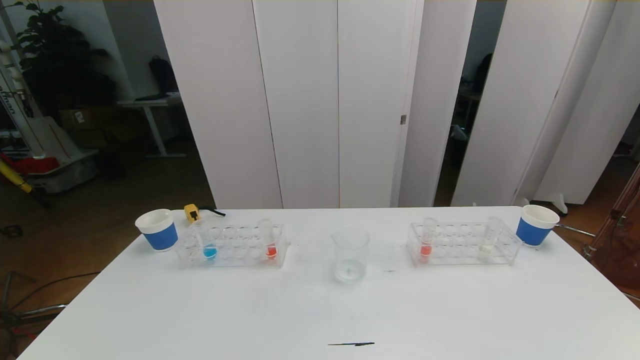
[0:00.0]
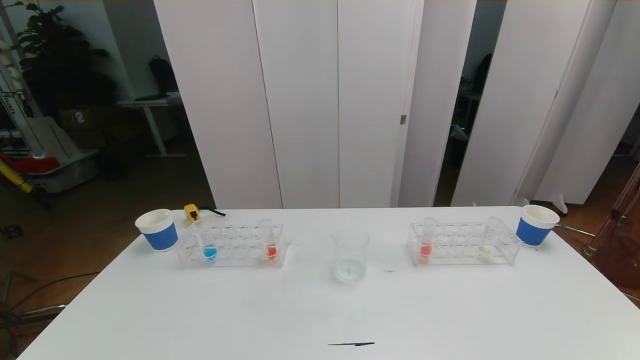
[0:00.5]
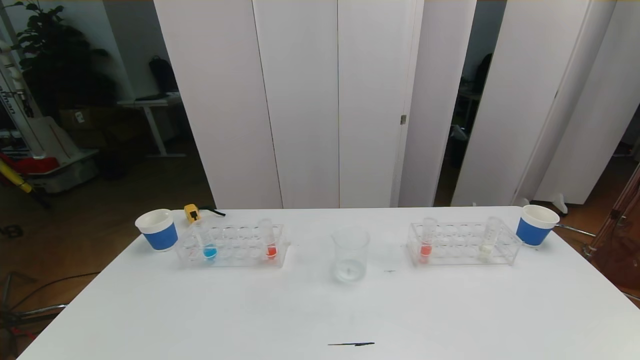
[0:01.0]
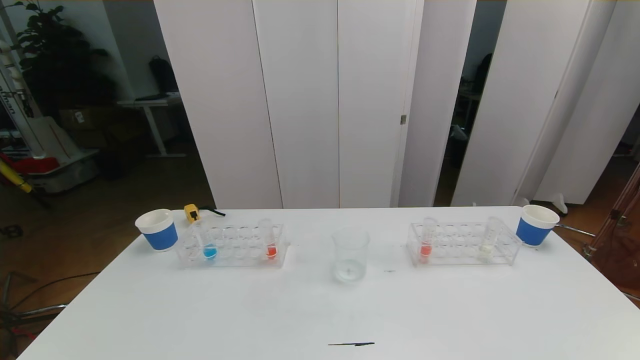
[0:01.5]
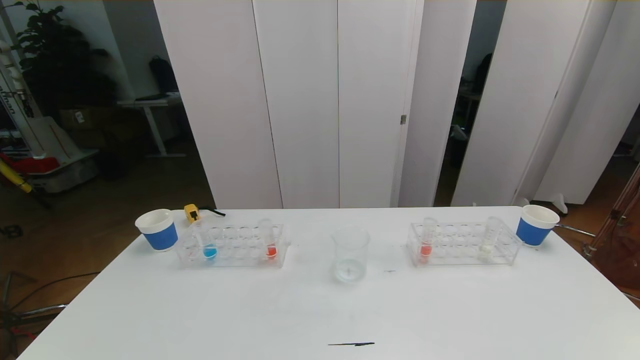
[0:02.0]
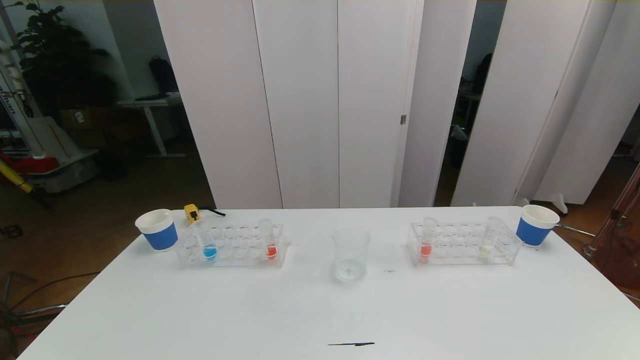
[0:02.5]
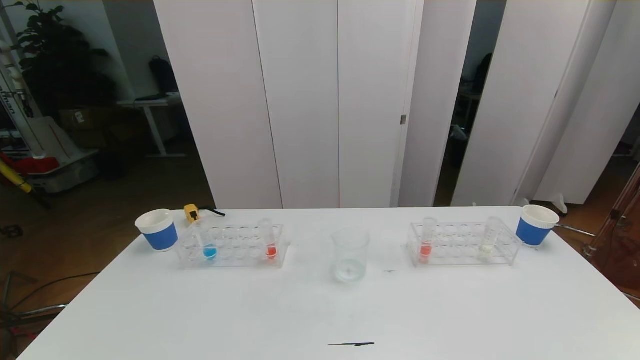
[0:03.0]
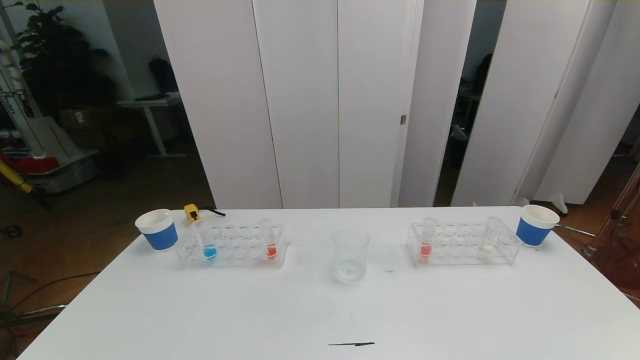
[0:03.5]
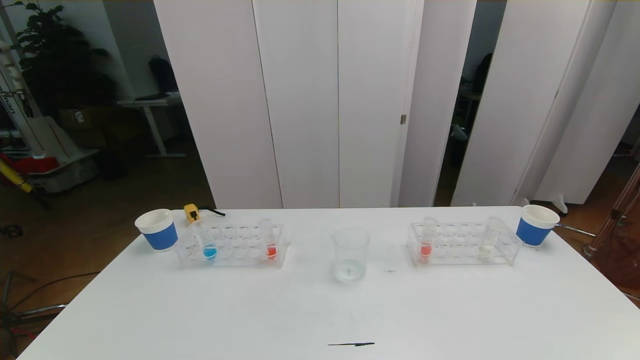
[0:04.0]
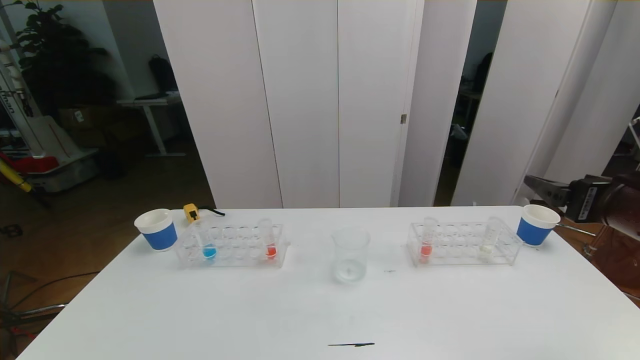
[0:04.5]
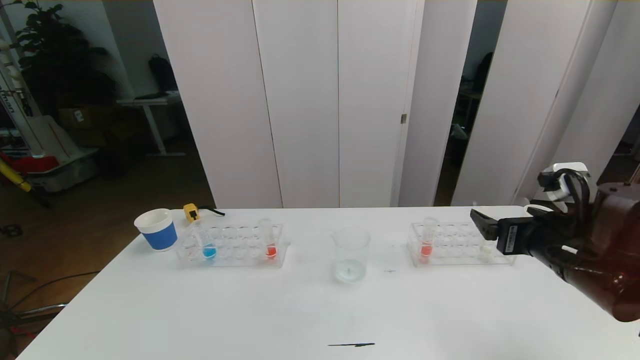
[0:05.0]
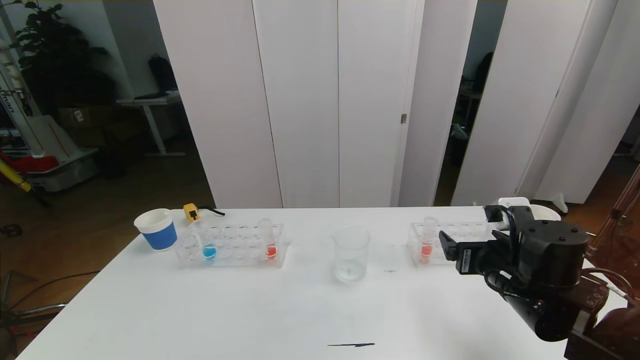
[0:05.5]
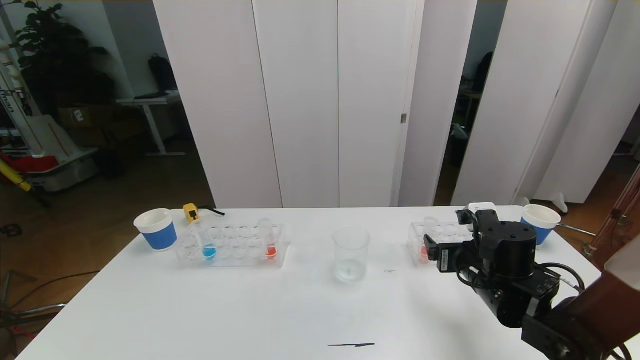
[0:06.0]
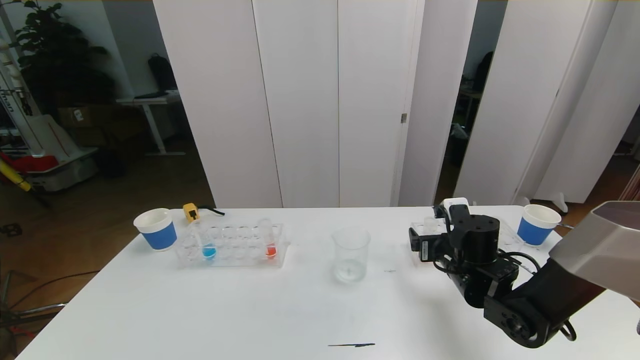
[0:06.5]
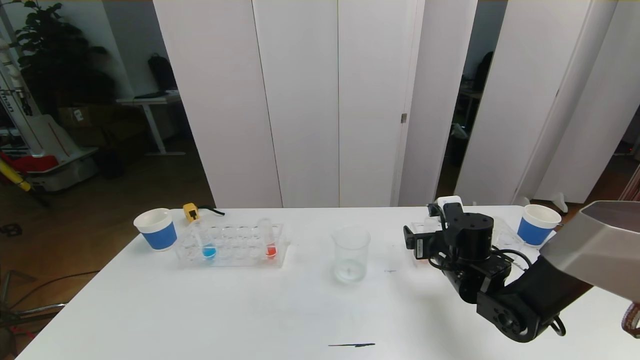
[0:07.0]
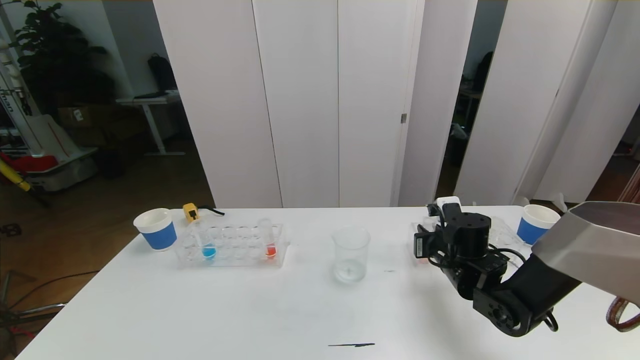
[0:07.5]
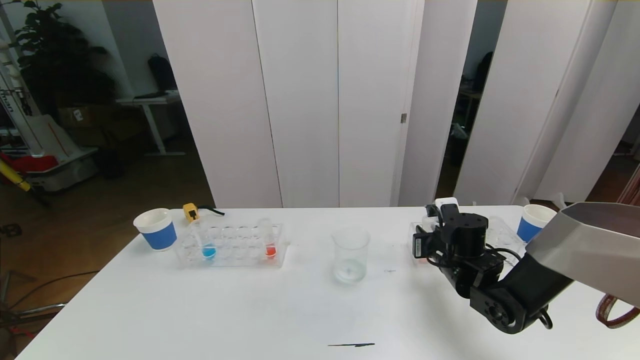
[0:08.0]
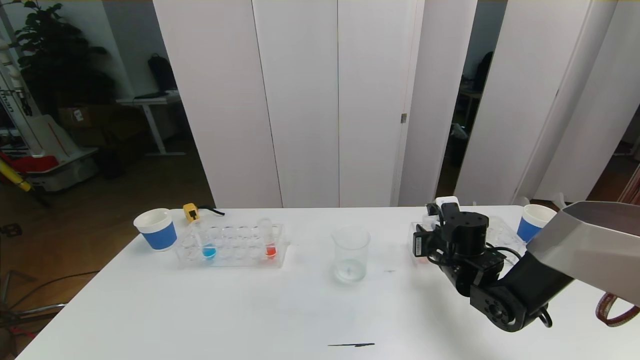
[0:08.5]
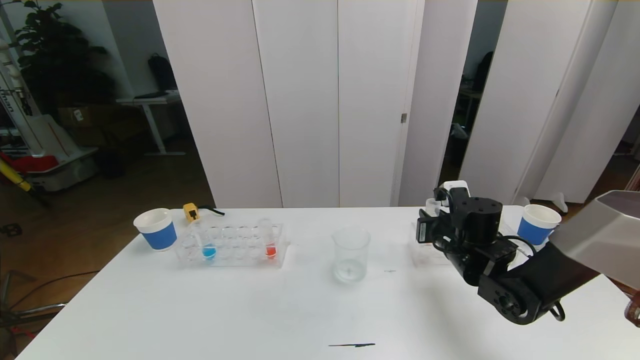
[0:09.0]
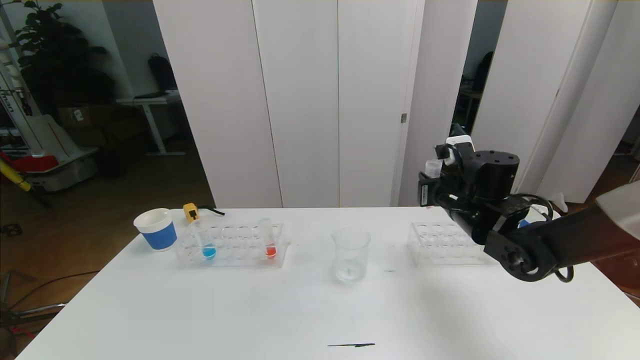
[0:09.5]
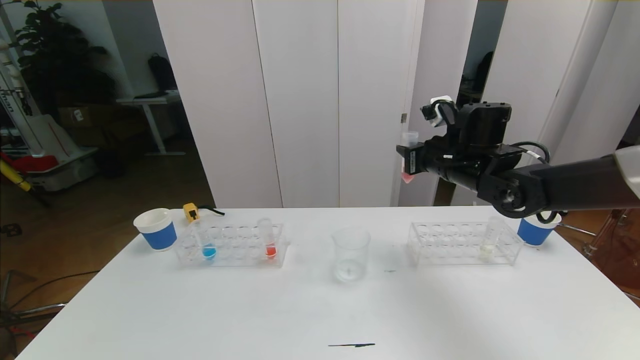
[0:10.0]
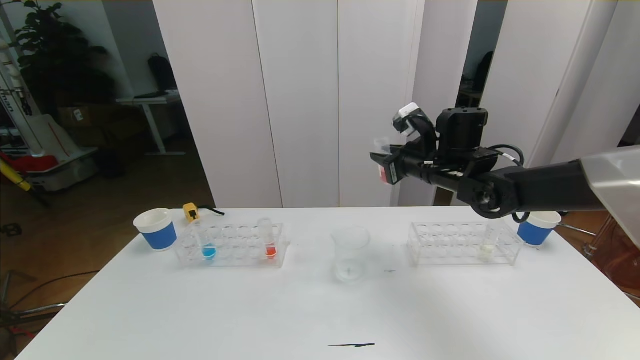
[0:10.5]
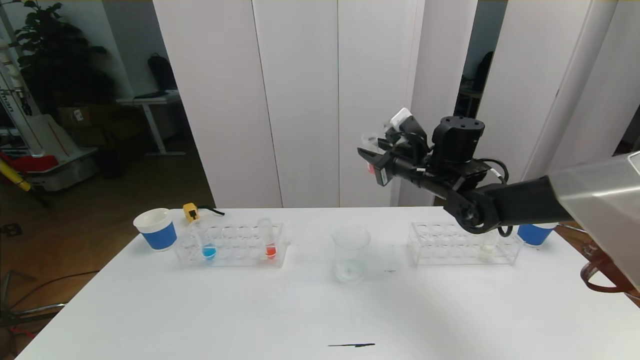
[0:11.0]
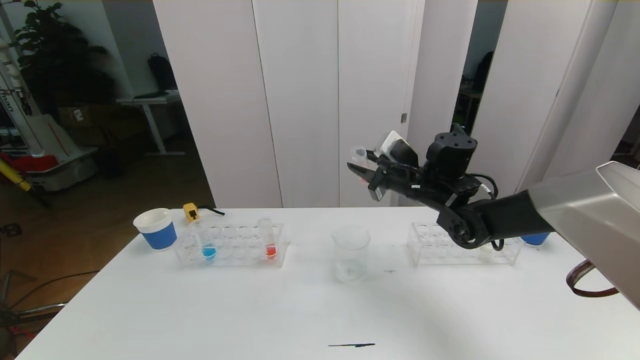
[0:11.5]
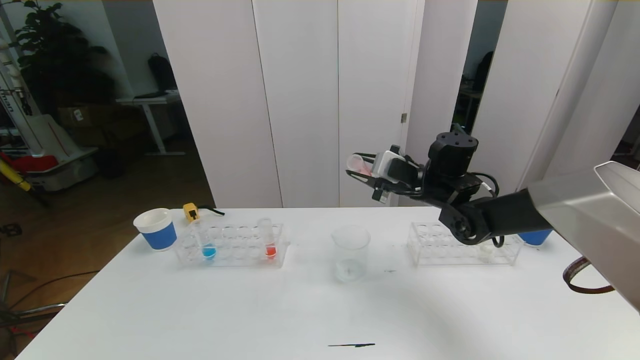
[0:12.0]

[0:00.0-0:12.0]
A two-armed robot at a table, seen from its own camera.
Task of the whole recording: pick up the test tube with red pigment the test tube with blue pigment and the test tube with white pigment by grippers and pour them into the beaker.
0:00.0 to 0:02.0: Neither gripper changes place.
0:04.0 to 0:06.0: The right gripper travels downward, forward and to the left by about 30 cm.
0:06.0 to 0:08.0: The right gripper travels forward by some 5 cm, and closes.
0:08.0 to 0:10.0: The right gripper travels upward by some 15 cm.
0:10.0 to 0:12.0: The right gripper changes place by approximately 5 cm.

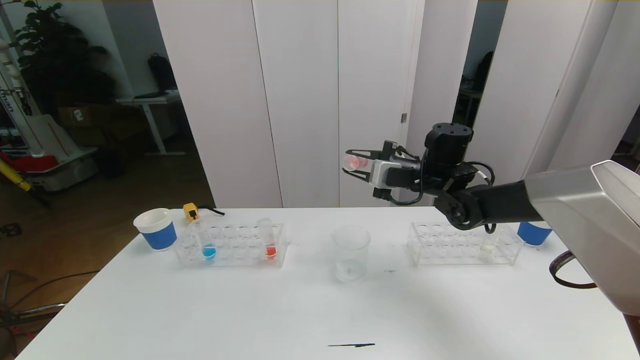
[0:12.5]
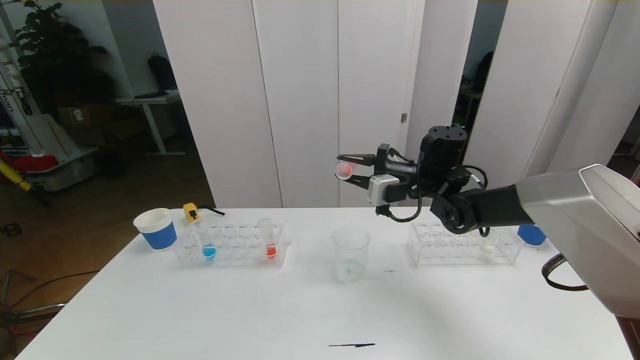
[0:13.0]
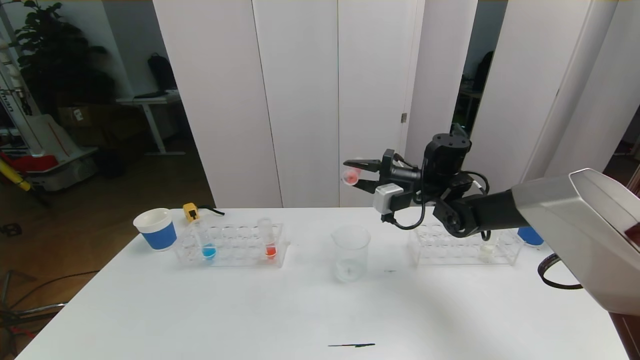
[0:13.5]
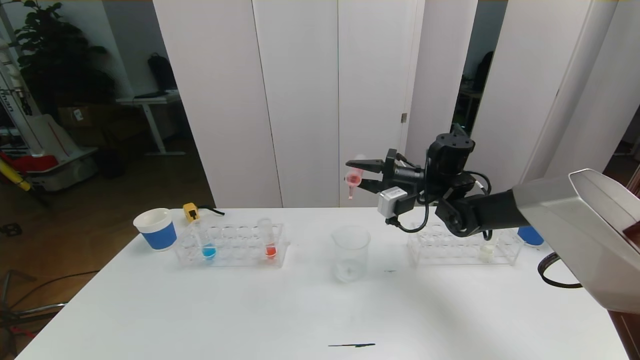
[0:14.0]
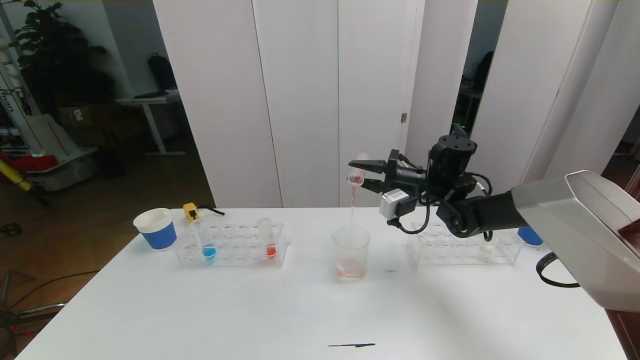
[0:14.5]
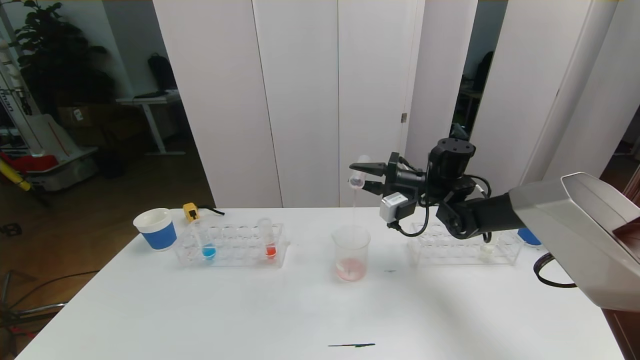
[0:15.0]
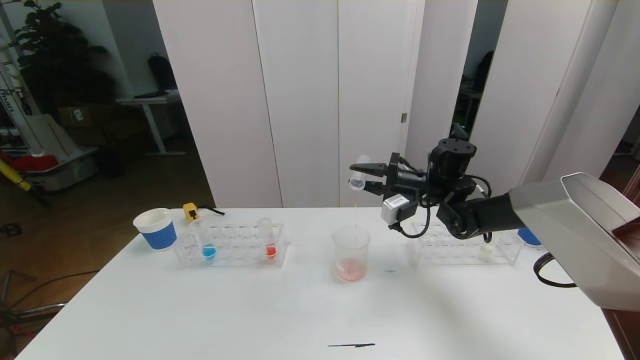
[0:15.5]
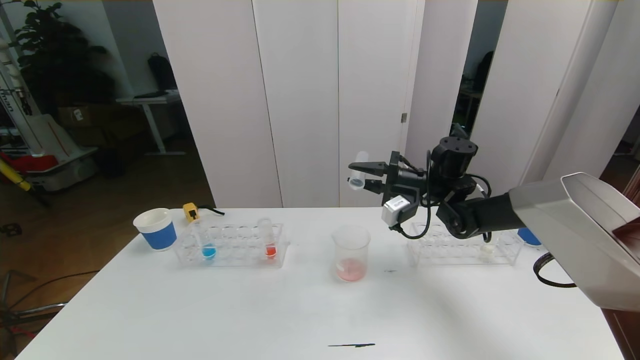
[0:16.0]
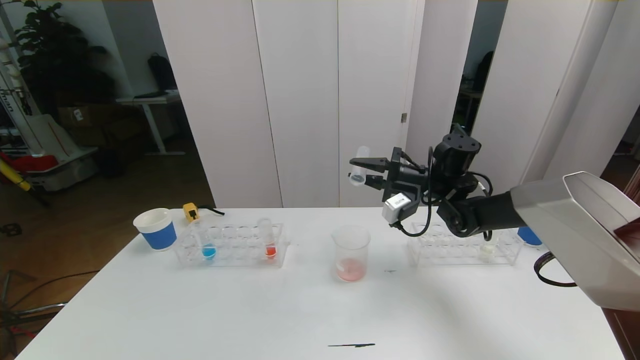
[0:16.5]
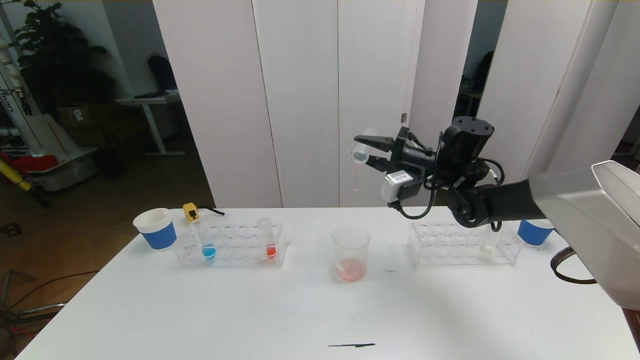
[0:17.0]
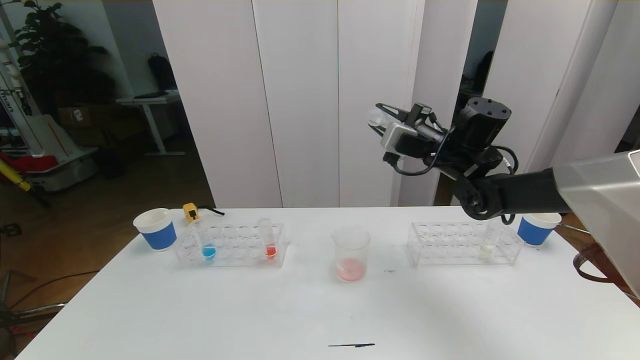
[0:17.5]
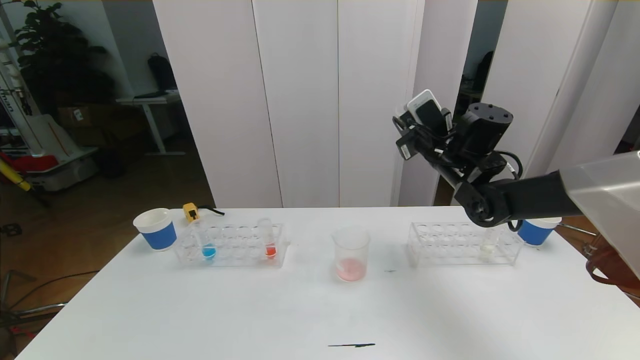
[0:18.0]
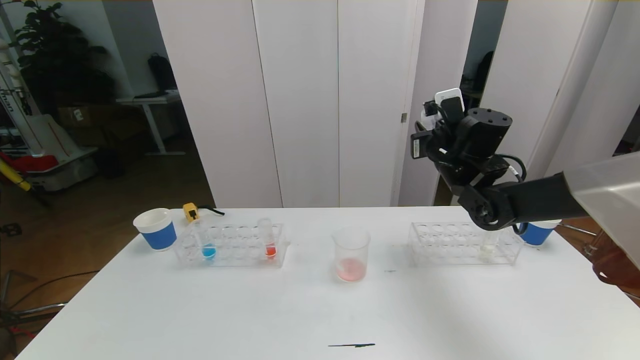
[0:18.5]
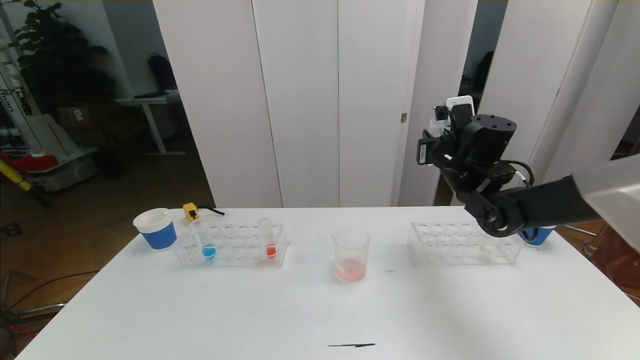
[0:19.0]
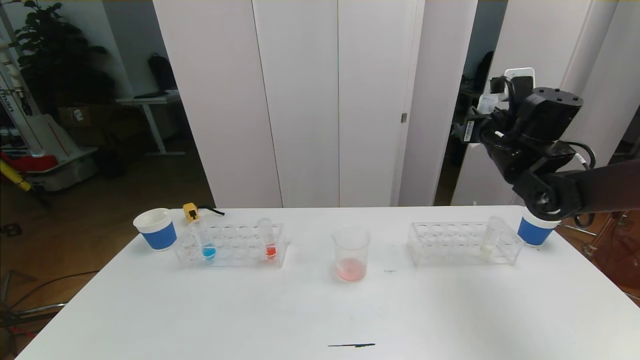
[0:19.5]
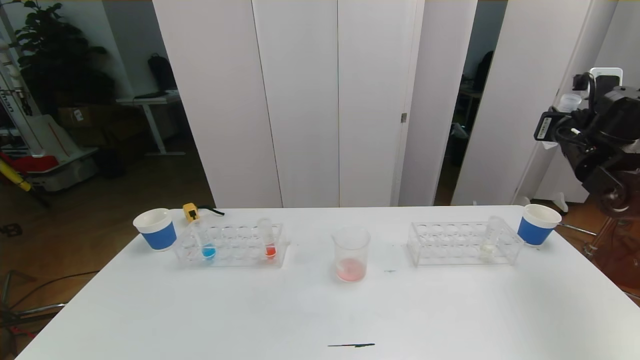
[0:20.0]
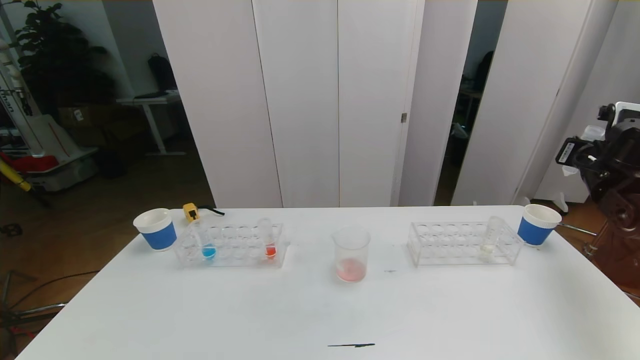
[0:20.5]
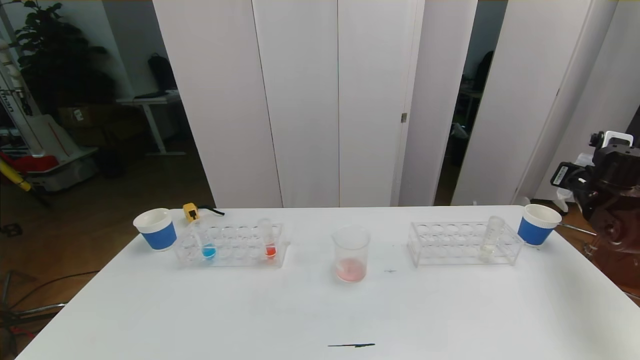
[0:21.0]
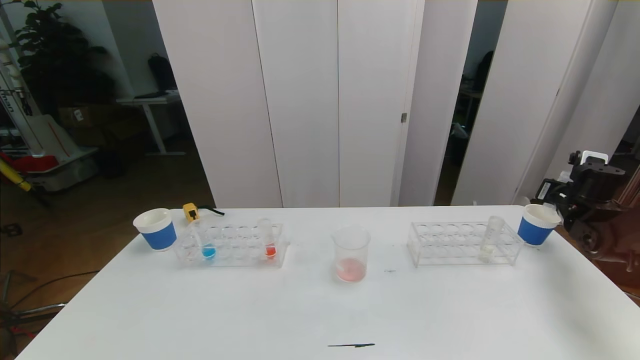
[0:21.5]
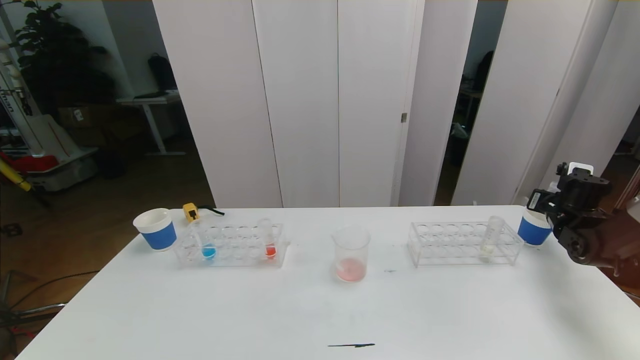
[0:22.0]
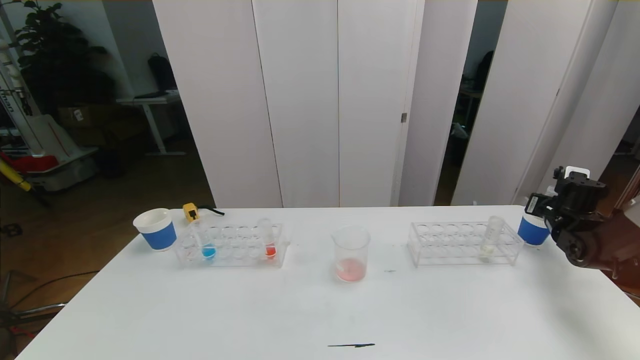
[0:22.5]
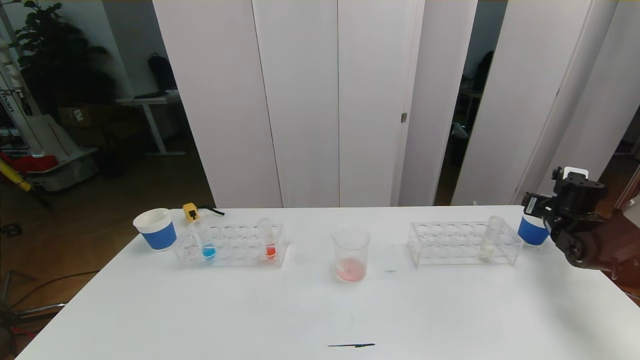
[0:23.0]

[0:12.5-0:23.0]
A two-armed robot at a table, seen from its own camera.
Task of the whole recording: pick up the test tube with red pigment the test tube with blue pigment and the test tube with white pigment by grippers and pour them into the beaker.
0:14.5 to 0:16.5: The grippers stay close to where they were, moving slightly.
0:16.5 to 0:19.0: The right gripper moves approximately 5 cm.
0:19.0 to 0:21.0: The right gripper goes approximately 25 cm to the right.
0:21.0 to 0:23.0: The right gripper shifts about 10 cm downward, and opens.
